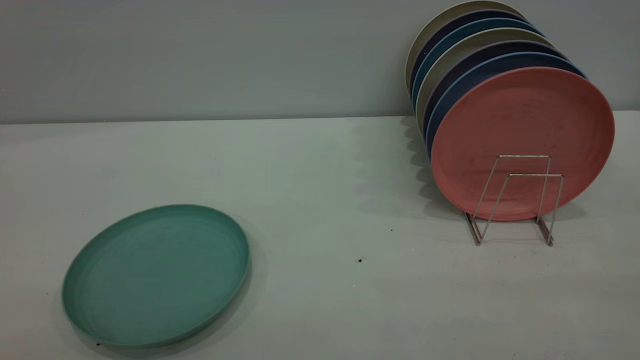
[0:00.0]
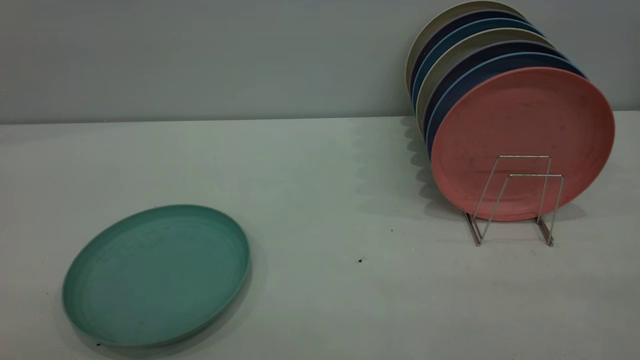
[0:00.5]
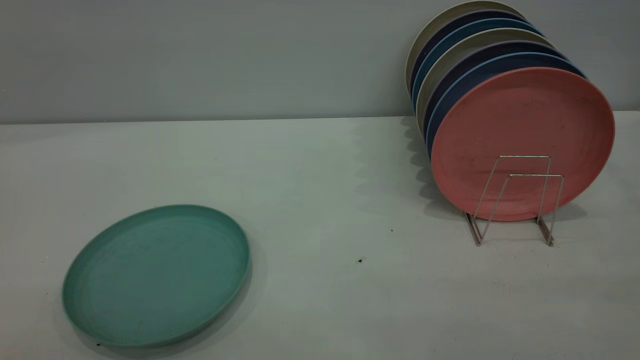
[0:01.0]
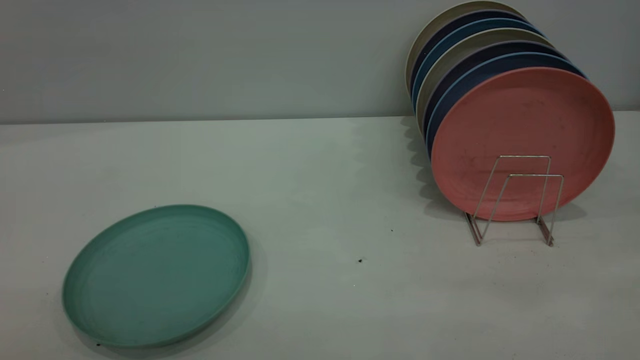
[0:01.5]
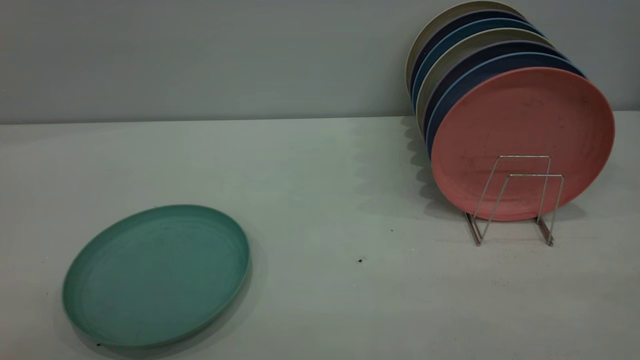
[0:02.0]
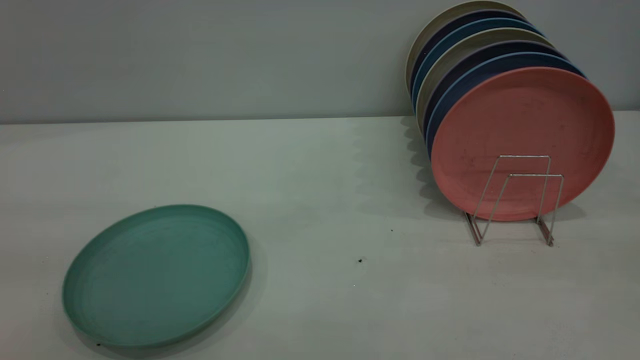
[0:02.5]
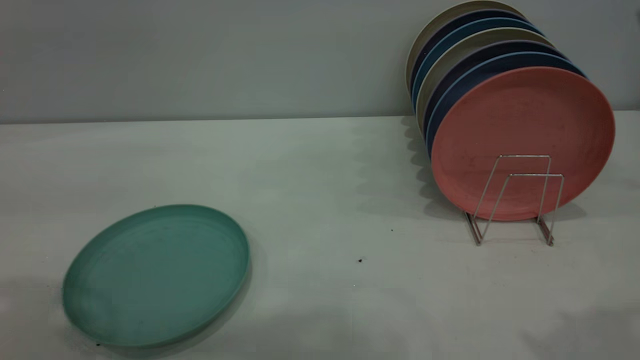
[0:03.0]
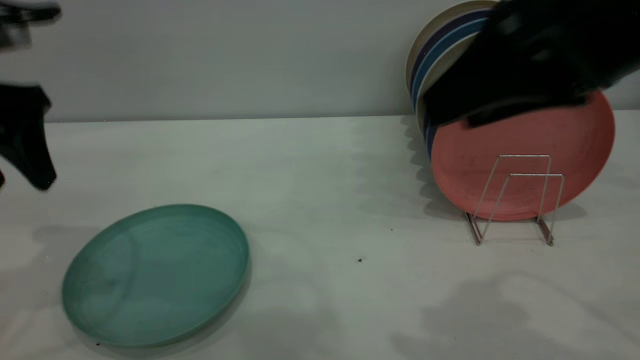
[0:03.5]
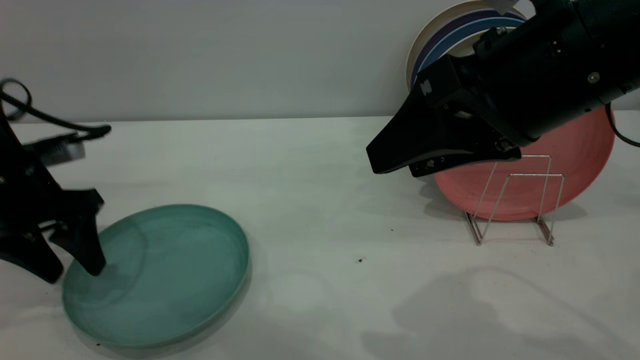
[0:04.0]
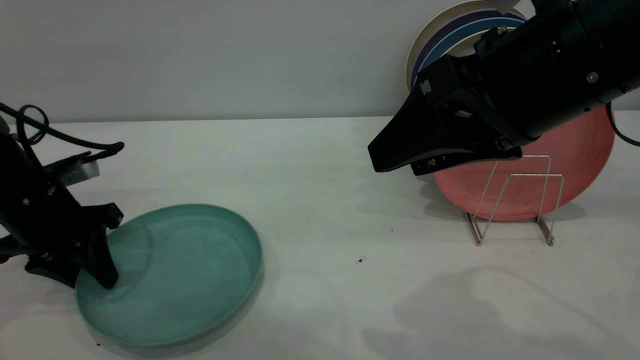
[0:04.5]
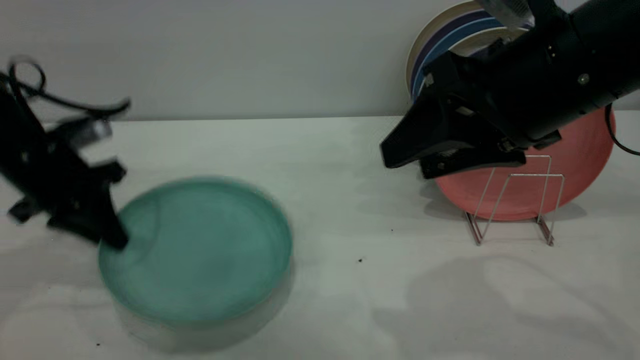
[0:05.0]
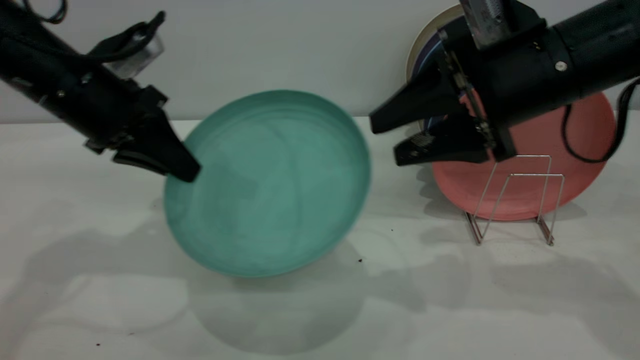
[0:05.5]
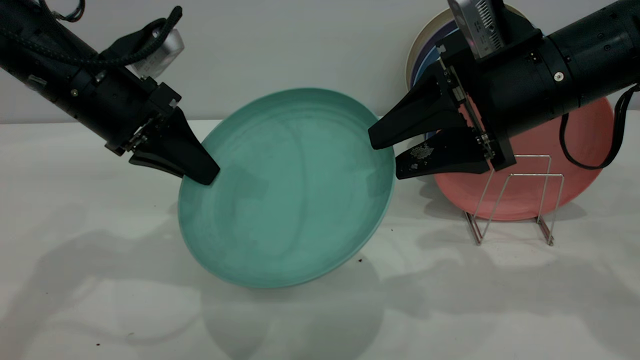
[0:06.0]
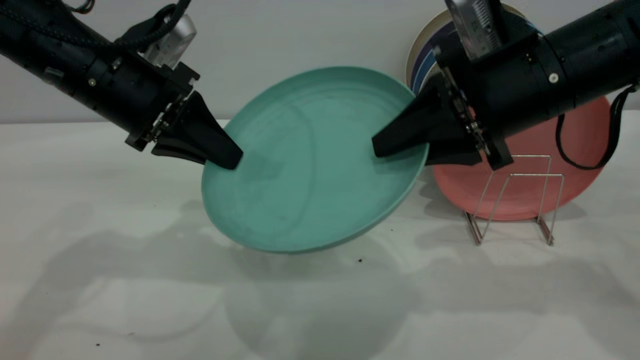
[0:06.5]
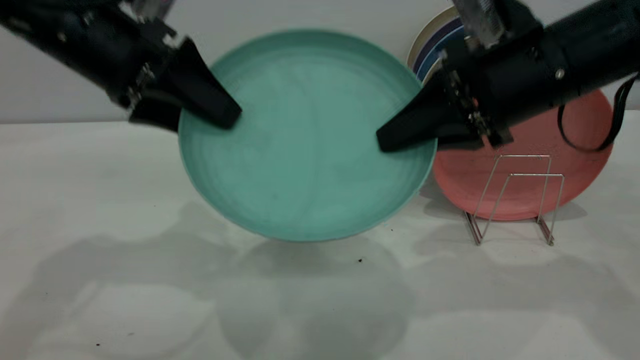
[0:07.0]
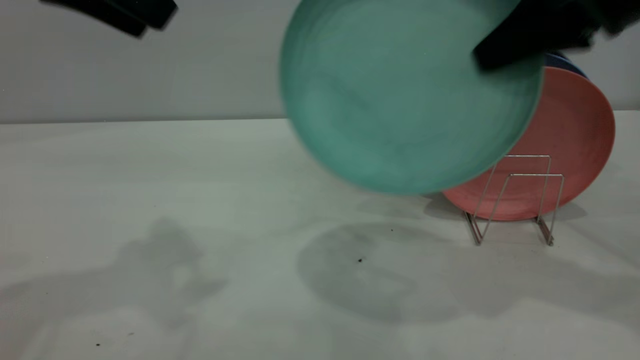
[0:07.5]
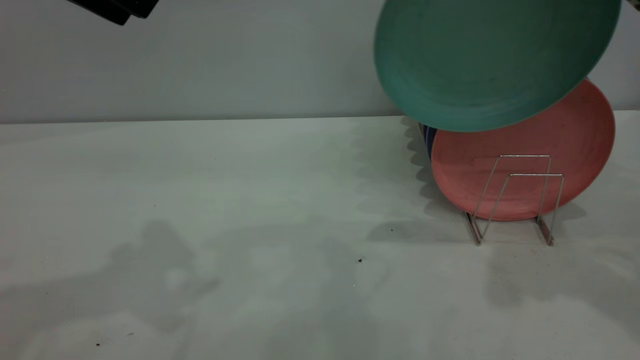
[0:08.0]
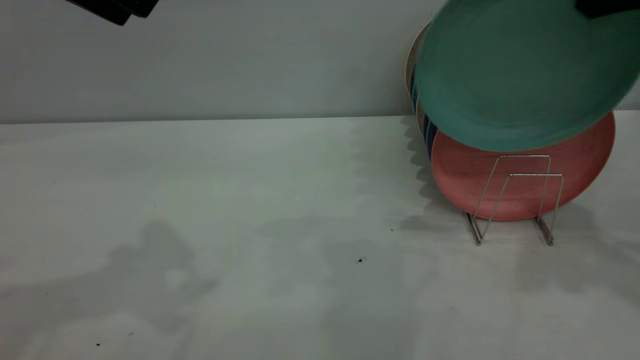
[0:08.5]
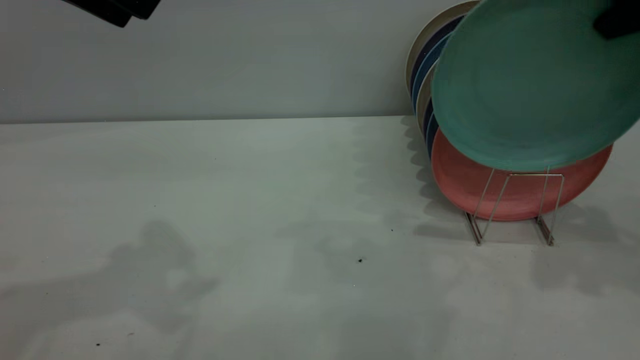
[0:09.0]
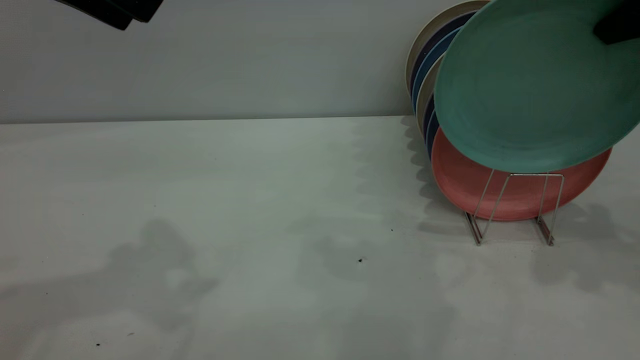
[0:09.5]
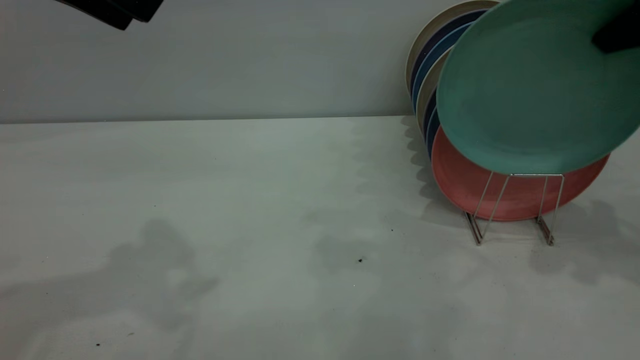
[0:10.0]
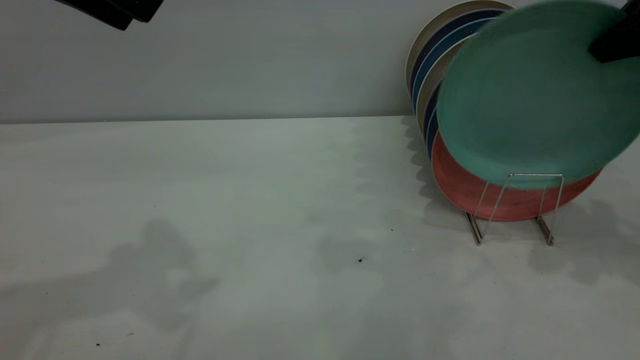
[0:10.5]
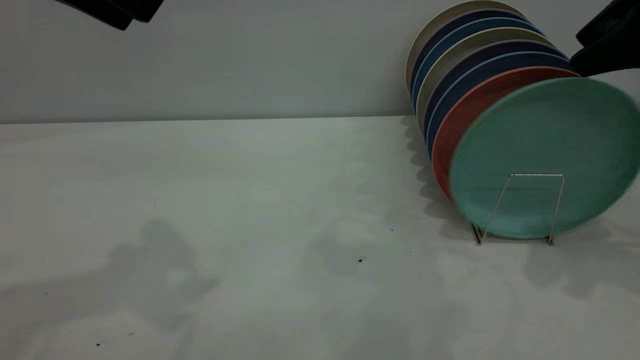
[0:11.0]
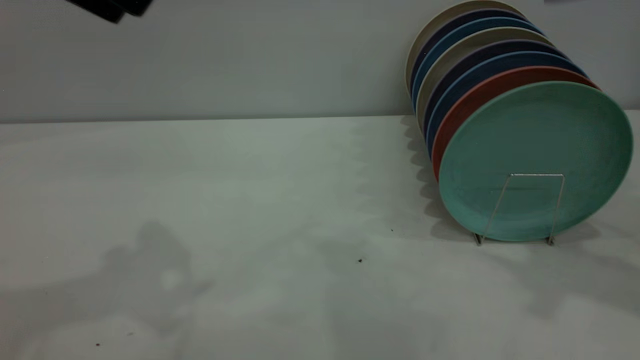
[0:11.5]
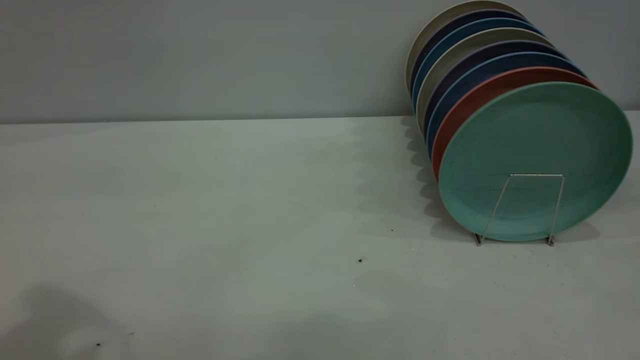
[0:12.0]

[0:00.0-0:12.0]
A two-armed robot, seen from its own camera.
Task of the whole recording: the left gripper grasp the green plate, the left gripper pass the green plate to the right gripper, and the right gripper place the green plate on the plate rack.
Step, 0:00.0 to 0:05.0: Pick up the plate with the left gripper.
Step, 0:05.5 to 0:07.0: Pass the plate from the left gripper to the right gripper.
Step, 0:08.0 to 0:11.0: Place the plate on the shelf.
0:00.0 to 0:02.0: Both grippers stay about where they are.
0:02.0 to 0:04.0: The left gripper heads forward and downward, covering about 40 cm; the right gripper travels forward and to the left by about 30 cm, and opens up.
0:04.0 to 0:06.0: The right gripper shifts roughly 10 cm forward; the left gripper travels to the right and upward by about 10 cm, and closes.
0:06.0 to 0:08.0: The left gripper is displaced upward by some 15 cm, and opens its fingers. The right gripper heads upward and to the right, covering some 15 cm, and closes up.
0:08.0 to 0:10.0: The right gripper goes roughly 10 cm to the right and downward.
0:10.0 to 0:12.0: The left gripper goes approximately 15 cm backward and upward. Meanwhile the right gripper is displaced backward and upward by roughly 25 cm, and opens its fingers.
